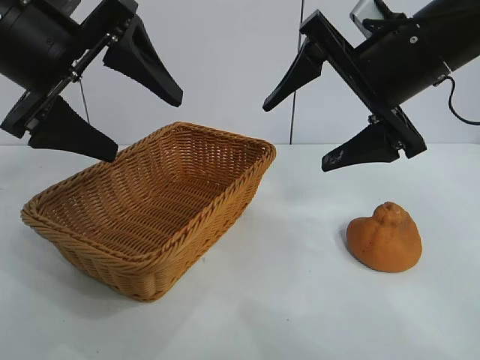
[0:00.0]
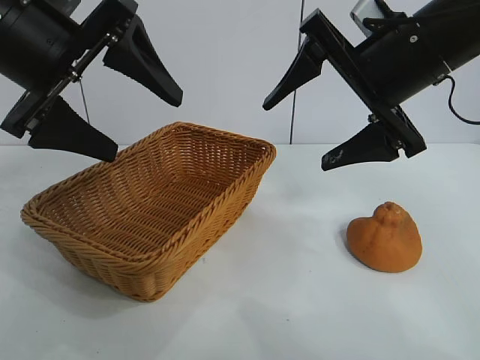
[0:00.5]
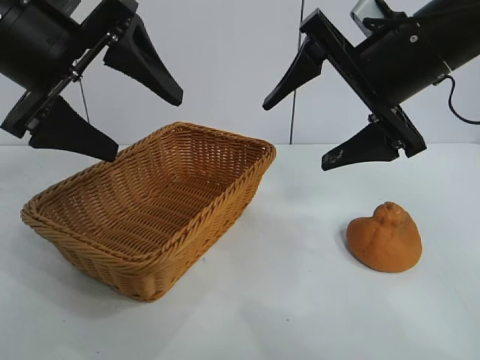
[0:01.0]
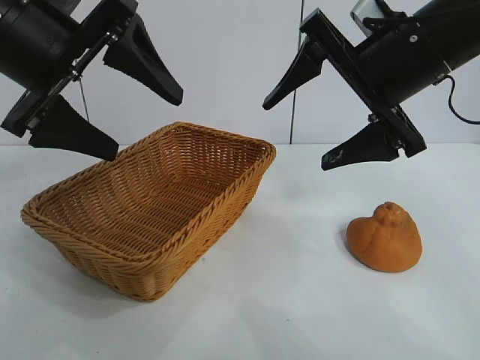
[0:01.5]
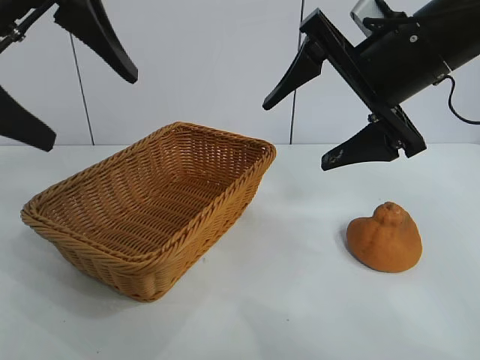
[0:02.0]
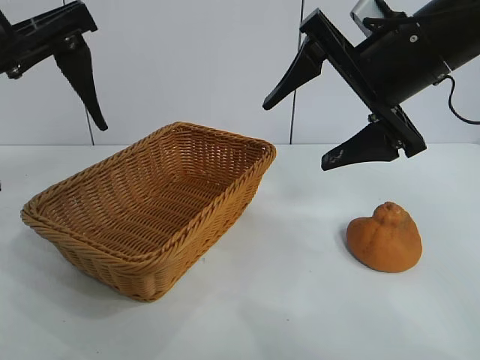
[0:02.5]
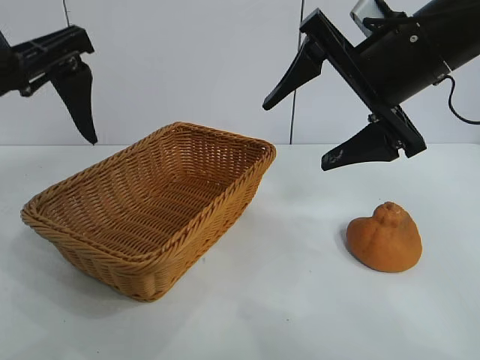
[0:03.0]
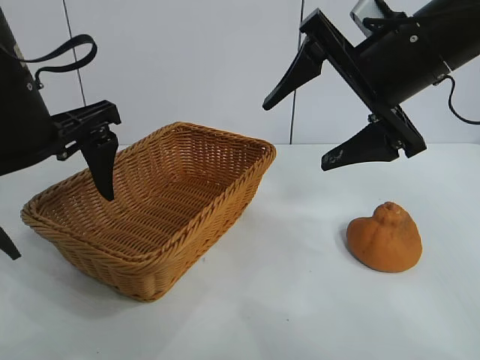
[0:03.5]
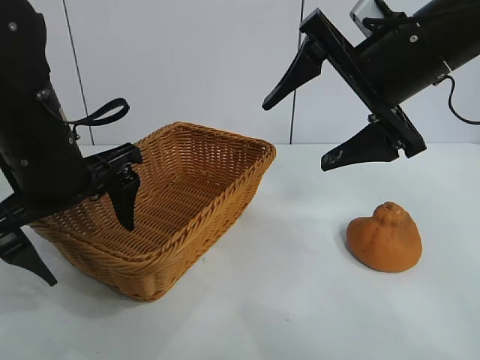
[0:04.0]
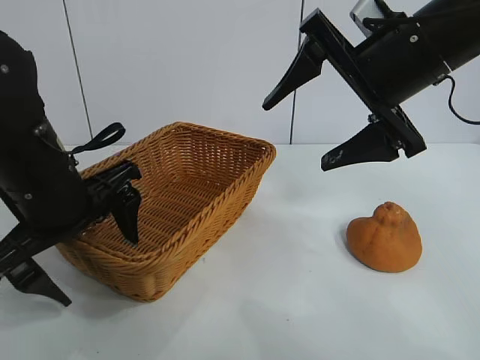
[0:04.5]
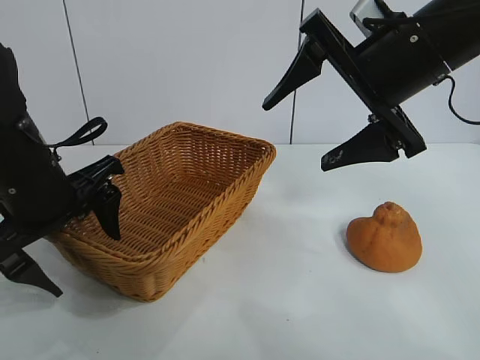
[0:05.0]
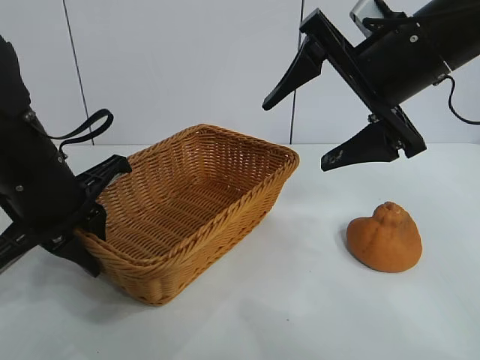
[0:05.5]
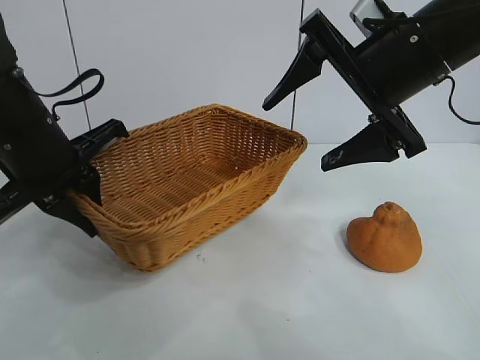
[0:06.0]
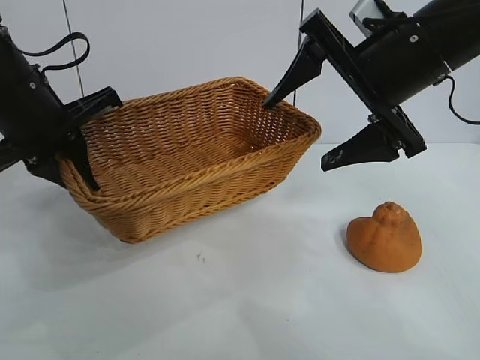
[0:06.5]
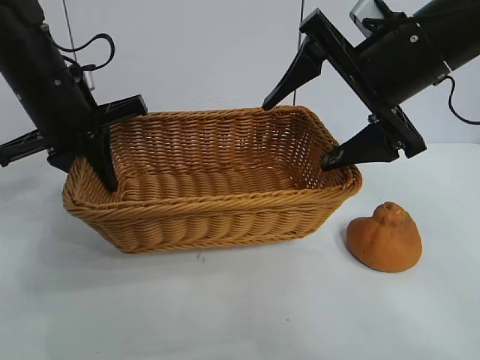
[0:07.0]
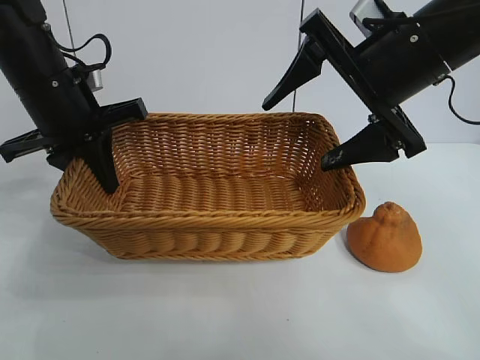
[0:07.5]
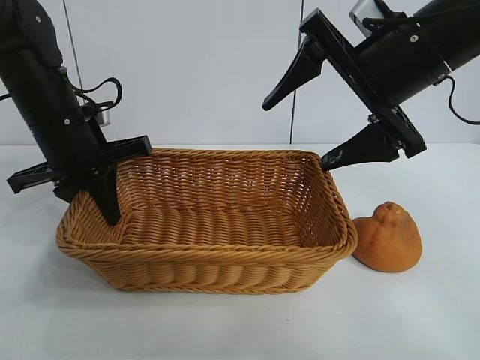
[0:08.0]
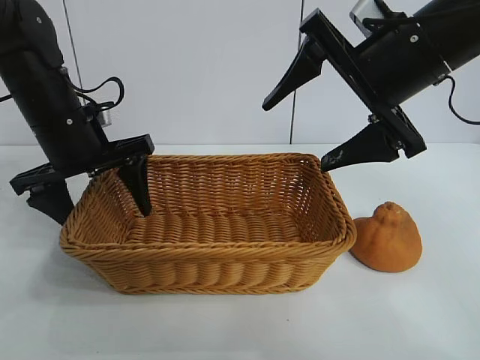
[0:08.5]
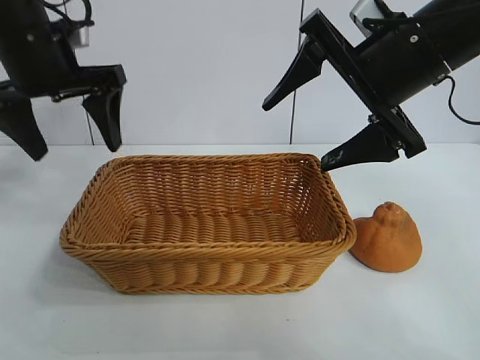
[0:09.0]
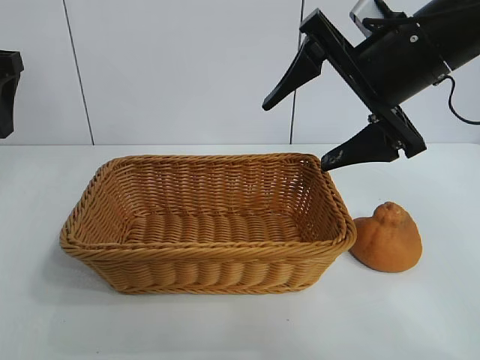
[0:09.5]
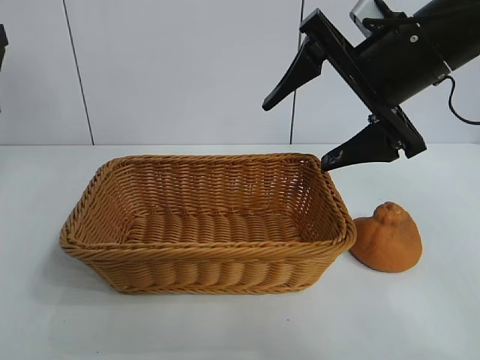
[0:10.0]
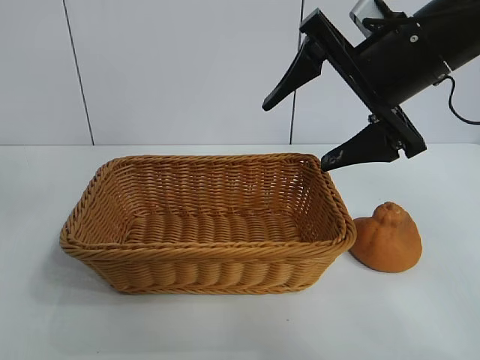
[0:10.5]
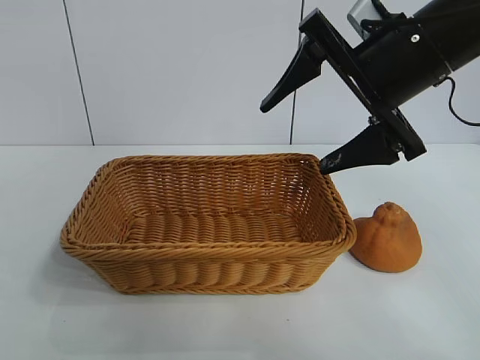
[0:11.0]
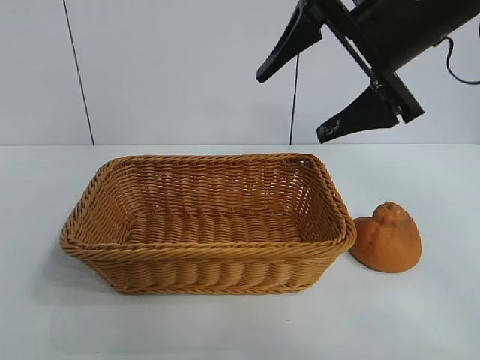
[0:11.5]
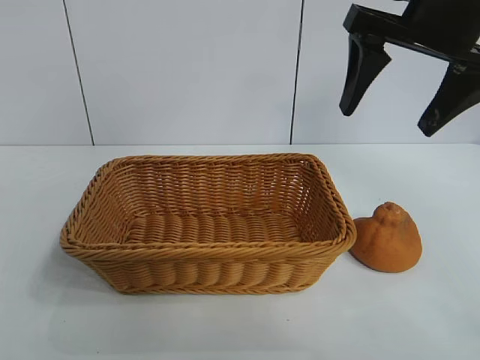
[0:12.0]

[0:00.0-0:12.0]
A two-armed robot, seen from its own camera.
Task of the whole recording: pick up the orange and put it into the basket.
Step, 0:01.5 to 0:05.5: Grasp the basket with left gripper.
Step, 0:06.0 to 0:08.5: Place the basket in the center of view with left gripper.

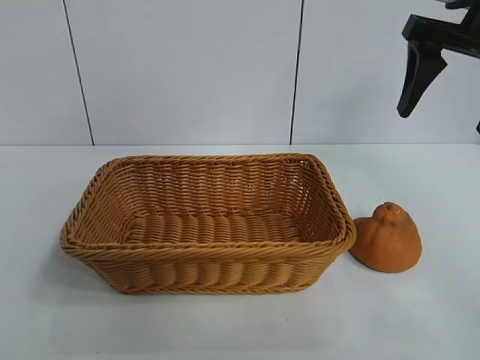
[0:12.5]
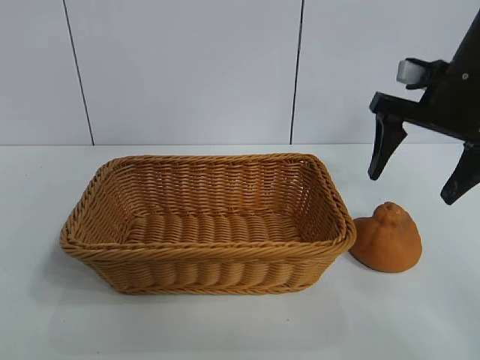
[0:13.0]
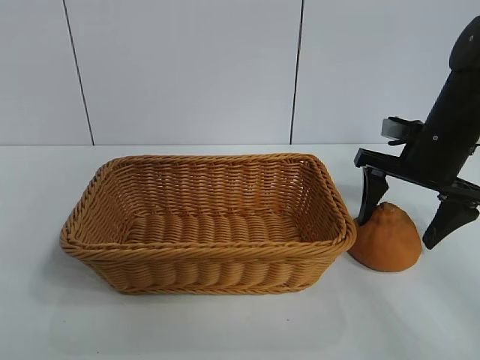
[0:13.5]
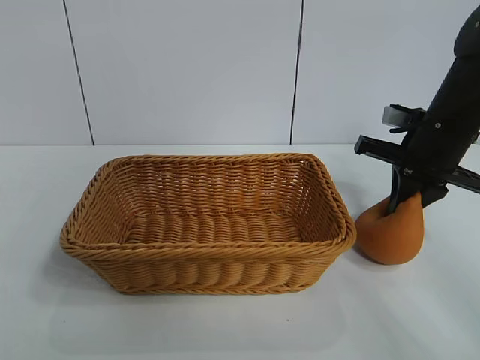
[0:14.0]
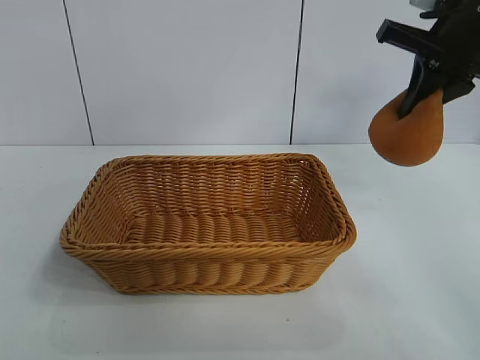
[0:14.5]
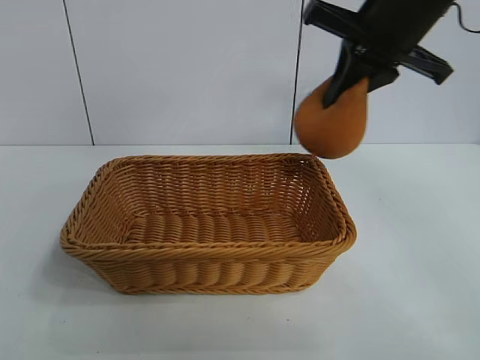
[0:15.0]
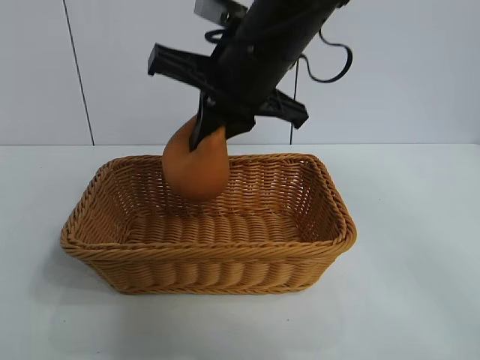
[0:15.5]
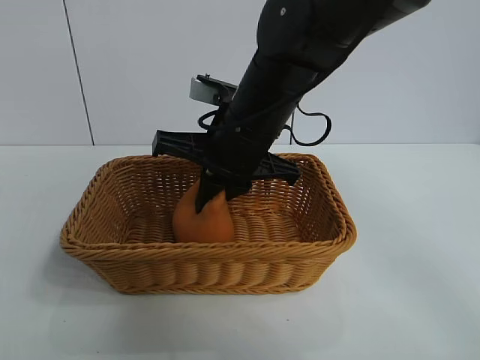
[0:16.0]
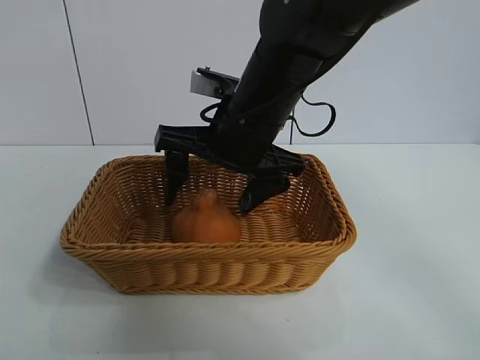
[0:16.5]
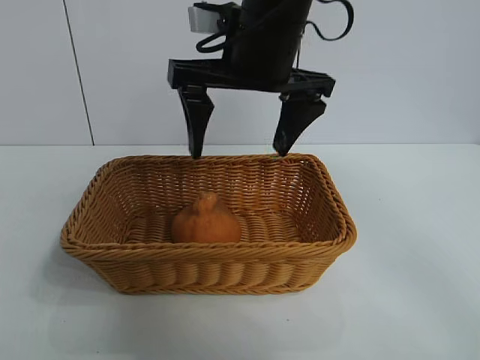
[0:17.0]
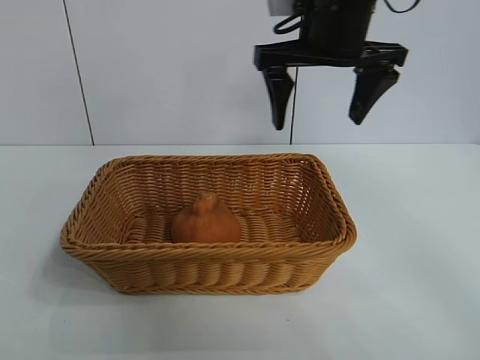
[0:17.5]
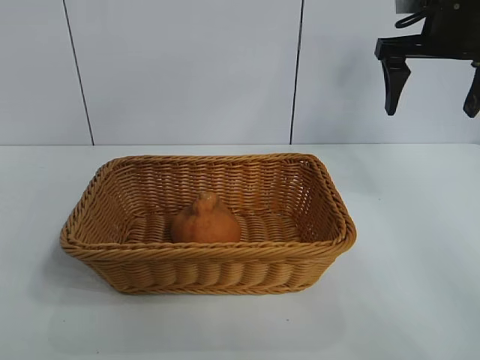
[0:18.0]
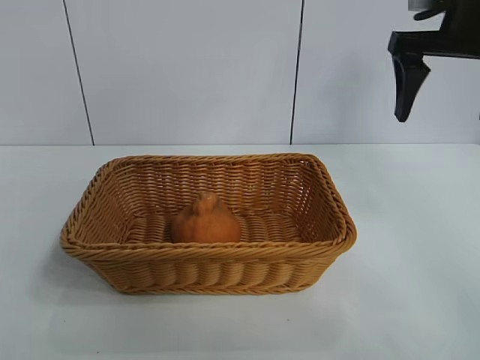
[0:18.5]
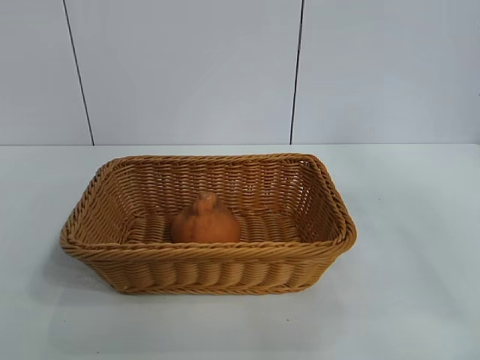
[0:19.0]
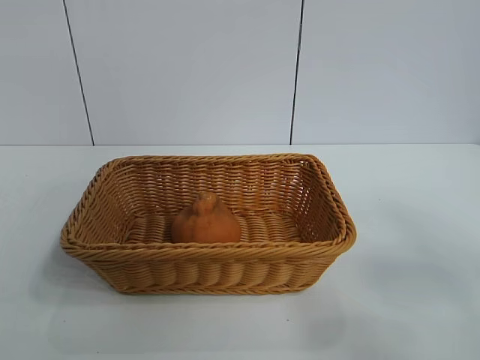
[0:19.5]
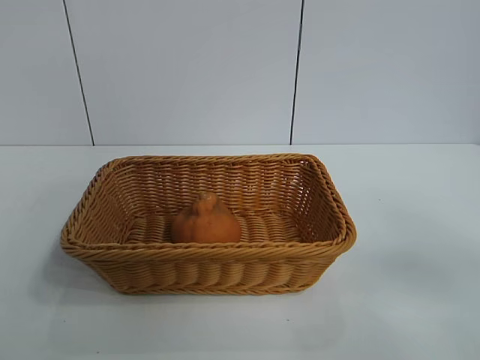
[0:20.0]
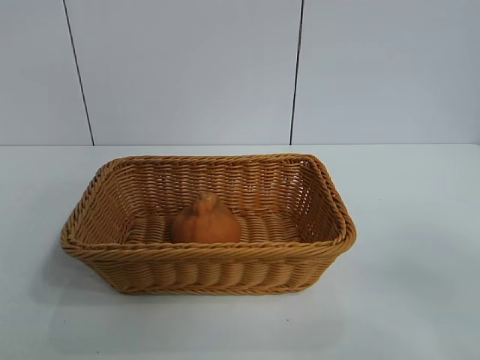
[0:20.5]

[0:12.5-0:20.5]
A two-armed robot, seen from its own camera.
Task of the whole recording: pick up the orange and put it into the basket.
Step, 0:14.5 to 0:16.5: Place the orange in the basket with right gripper.
